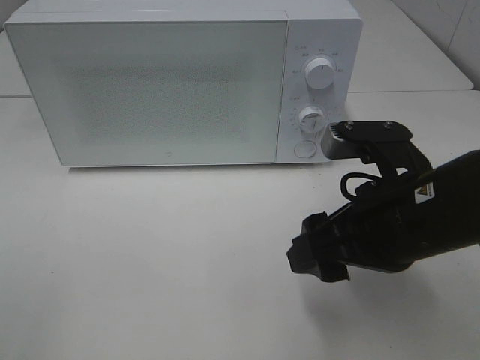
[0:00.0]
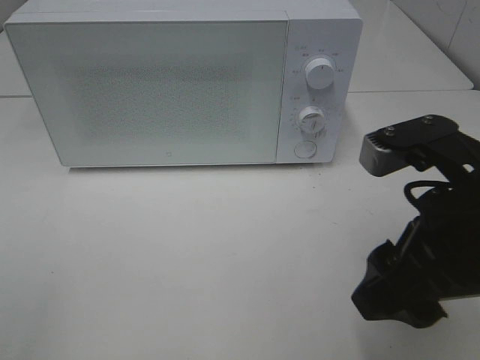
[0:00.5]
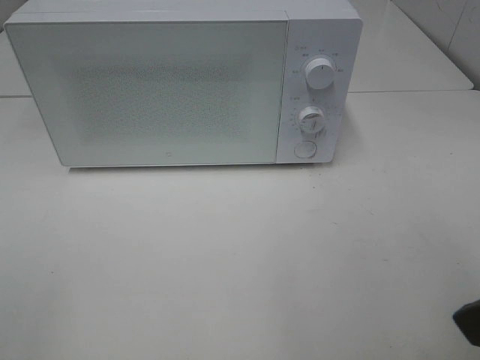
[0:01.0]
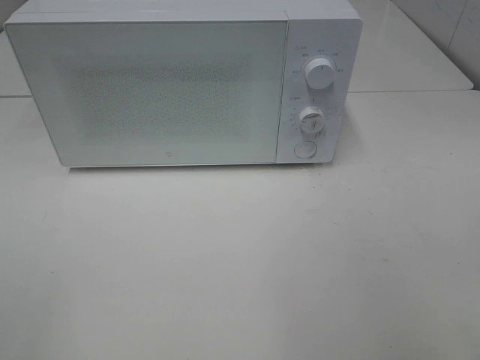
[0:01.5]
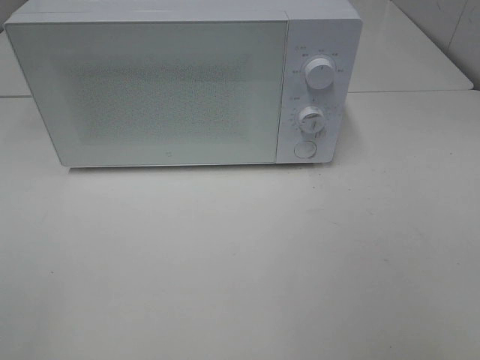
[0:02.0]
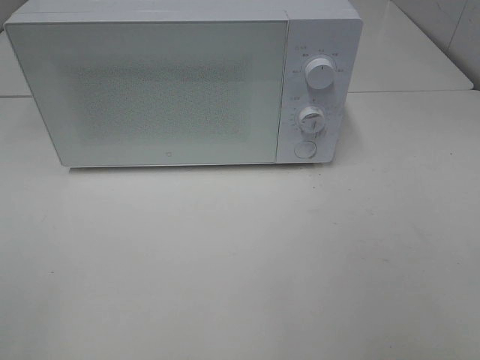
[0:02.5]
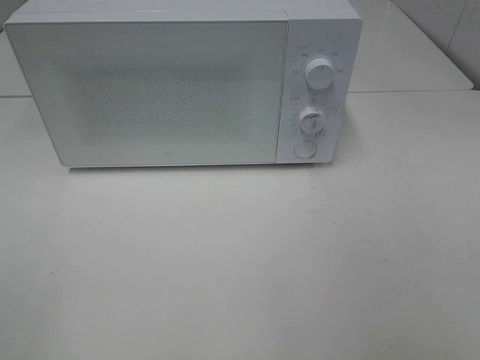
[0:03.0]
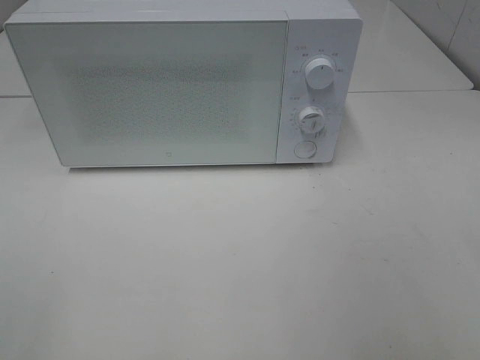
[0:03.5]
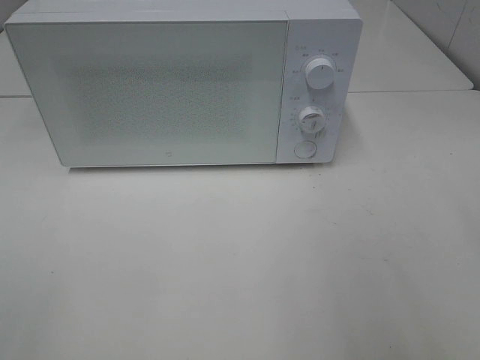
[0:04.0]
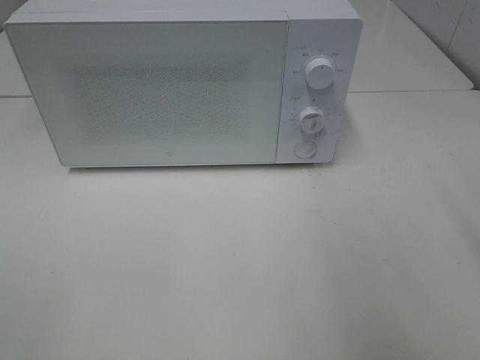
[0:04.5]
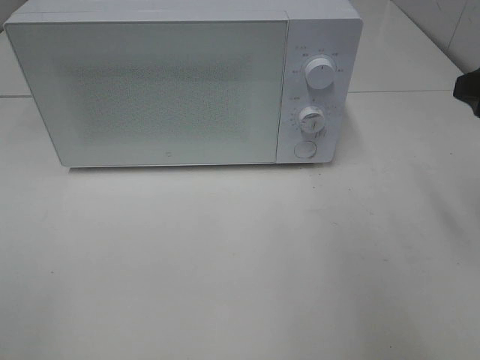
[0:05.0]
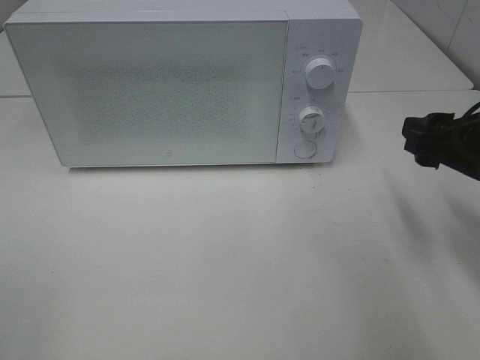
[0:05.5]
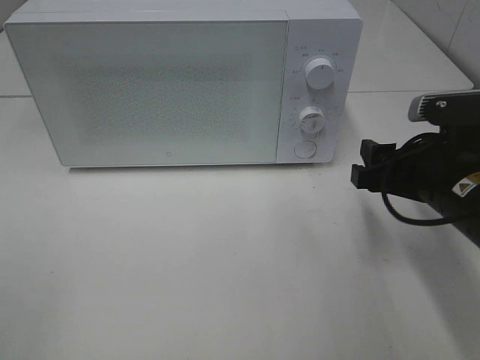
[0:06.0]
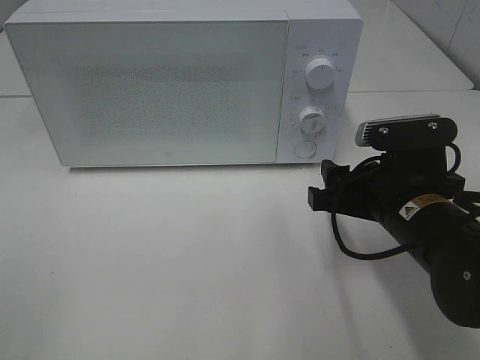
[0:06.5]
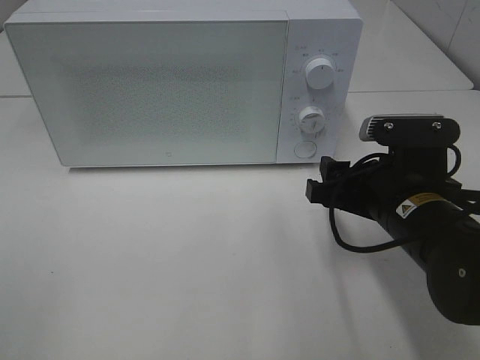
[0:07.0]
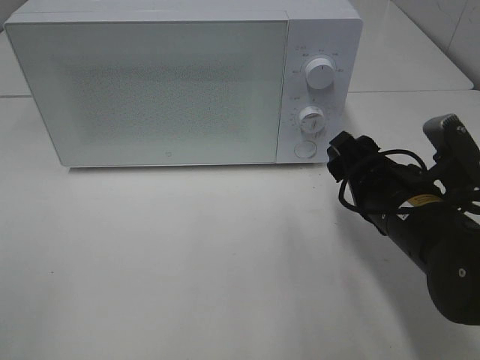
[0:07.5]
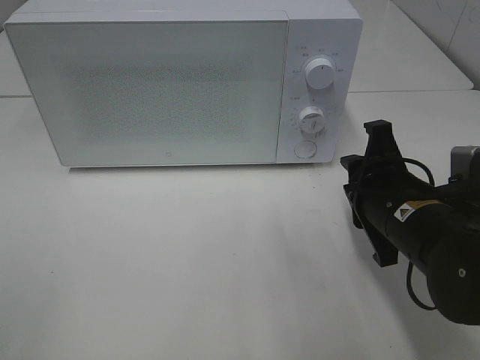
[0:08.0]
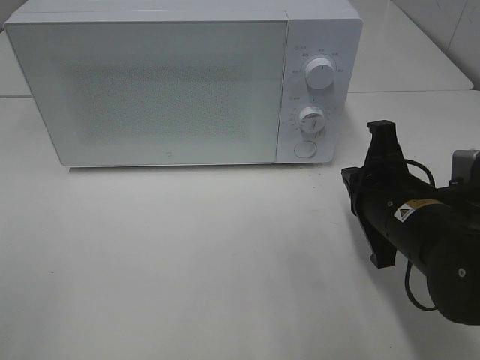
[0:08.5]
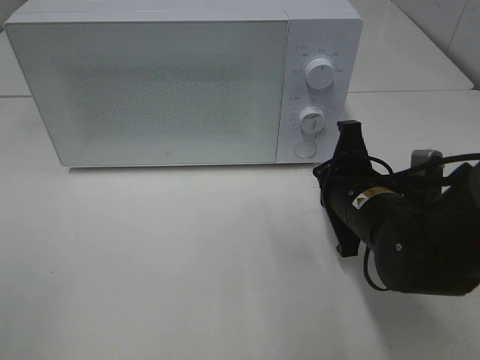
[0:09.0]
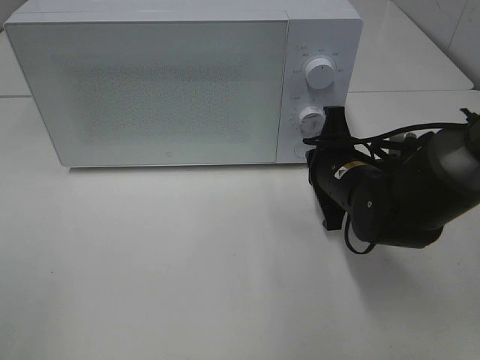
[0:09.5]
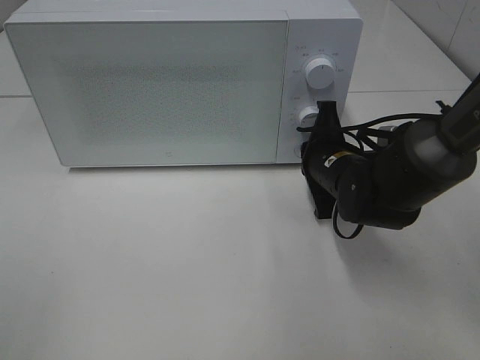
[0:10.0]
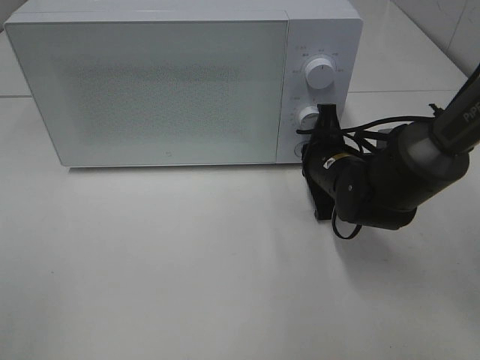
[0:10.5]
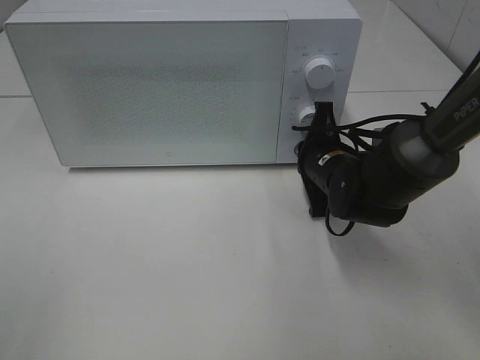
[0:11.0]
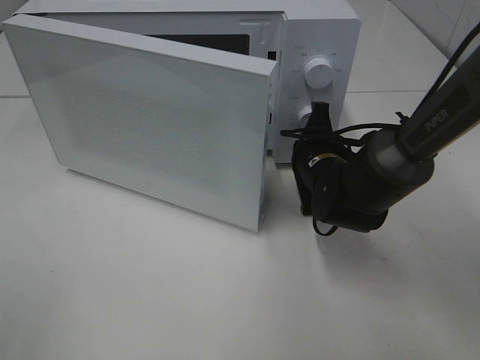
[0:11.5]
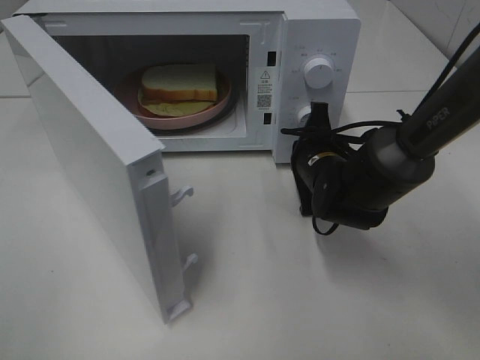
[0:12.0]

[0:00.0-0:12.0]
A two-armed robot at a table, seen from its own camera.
Task of the whole recording: Heat Sandwich.
0:00.0 to 0:02.0: The right gripper is displaced backward, to the right and upward by some 25 cm.
0:04.0 to 0:06.0: The right gripper moves downward, forward and to the left, roughly 20 cm.
0:06.0 to 0:08.0: The right gripper moves about 5 cm, and closes its fingers.
0:08.0 to 0:10.0: The right gripper goes roughly 10 cm forward, and closes up.

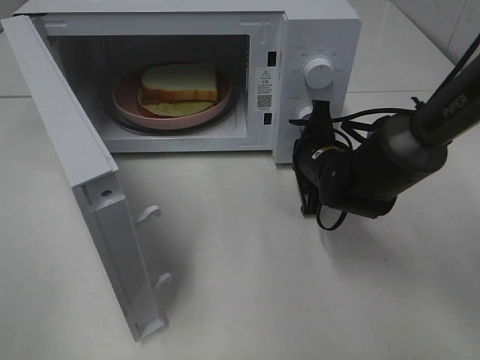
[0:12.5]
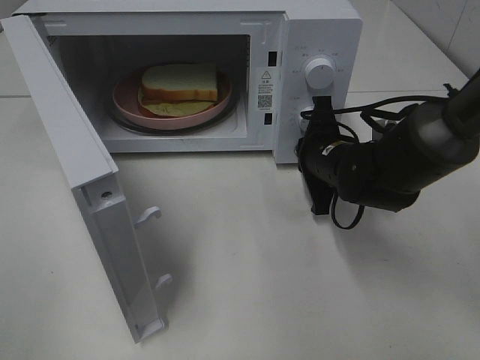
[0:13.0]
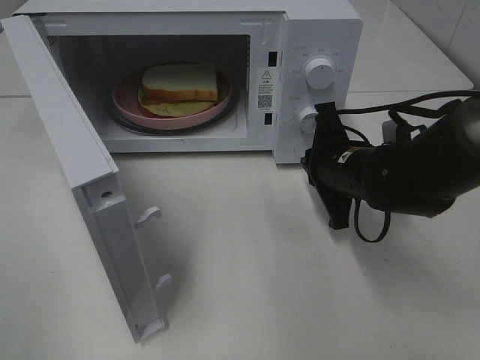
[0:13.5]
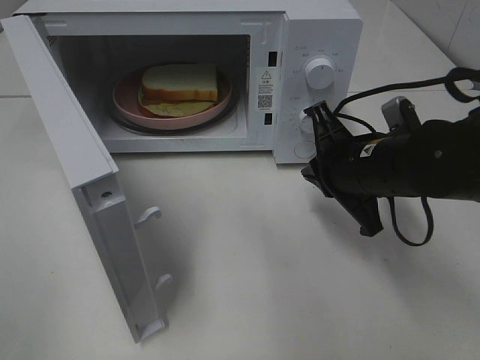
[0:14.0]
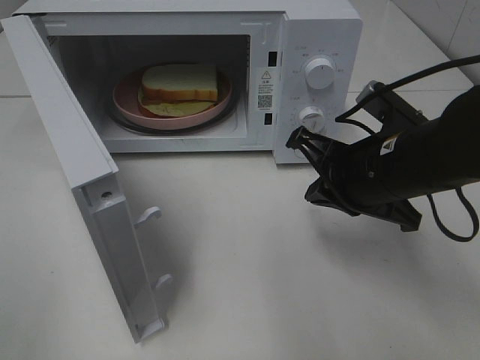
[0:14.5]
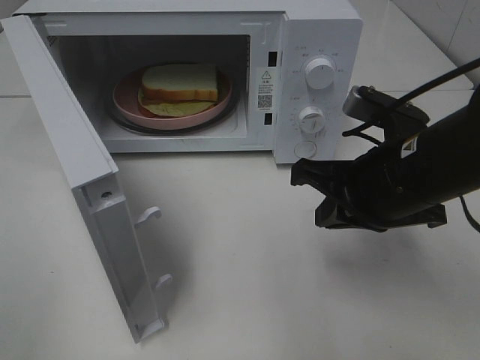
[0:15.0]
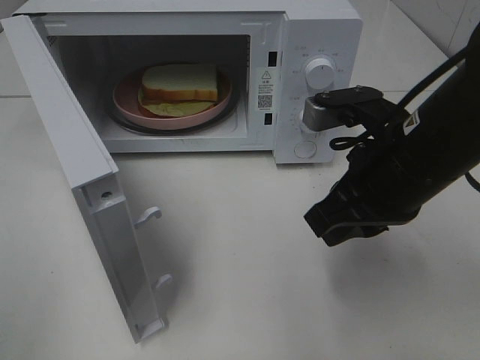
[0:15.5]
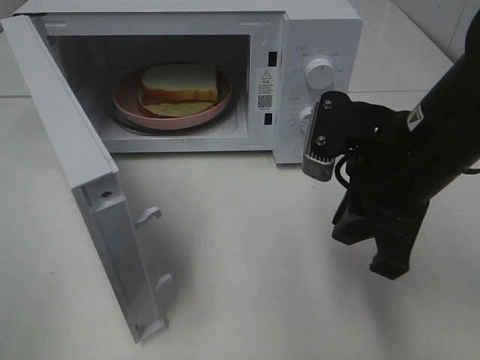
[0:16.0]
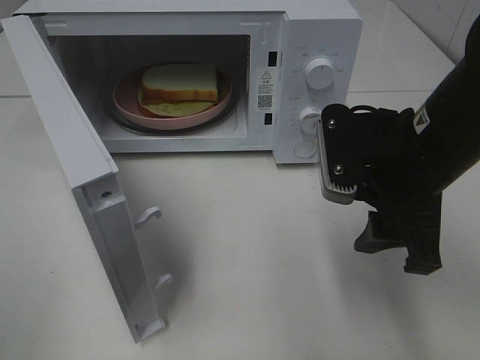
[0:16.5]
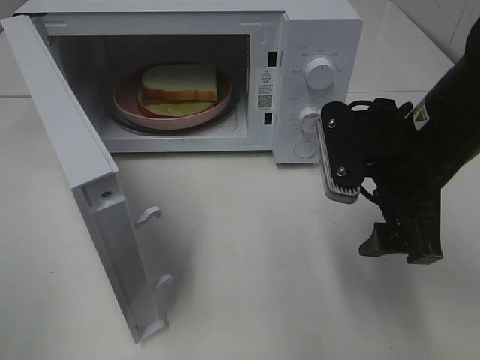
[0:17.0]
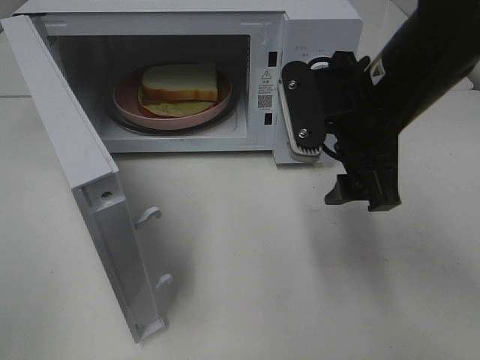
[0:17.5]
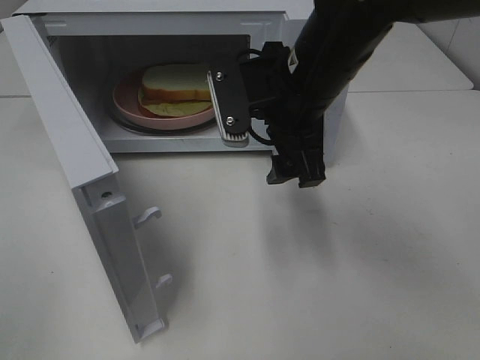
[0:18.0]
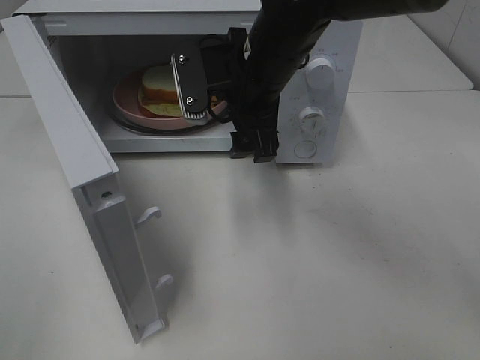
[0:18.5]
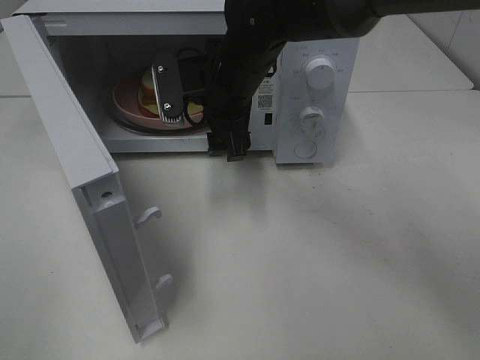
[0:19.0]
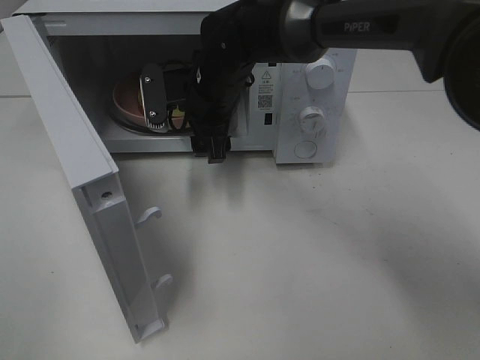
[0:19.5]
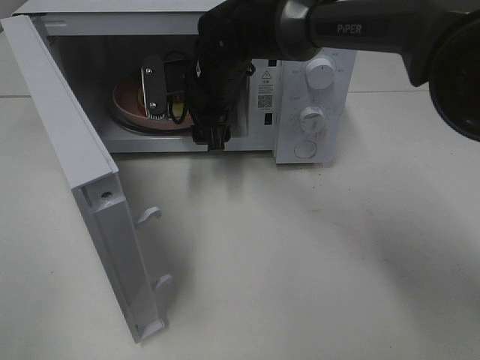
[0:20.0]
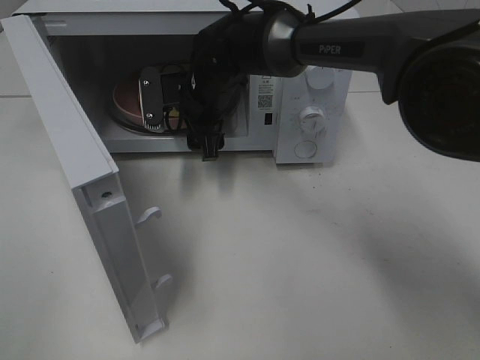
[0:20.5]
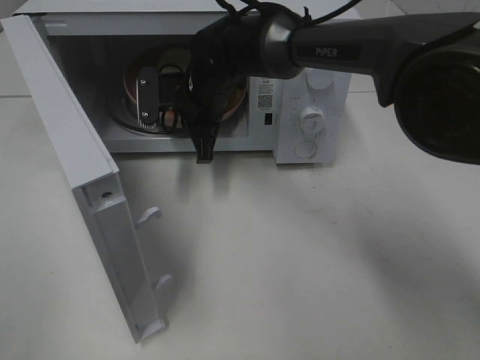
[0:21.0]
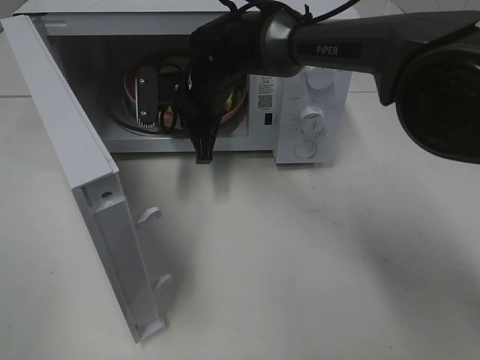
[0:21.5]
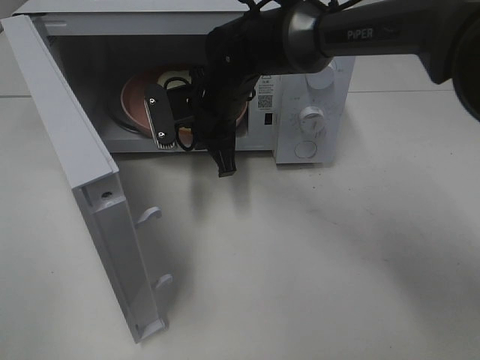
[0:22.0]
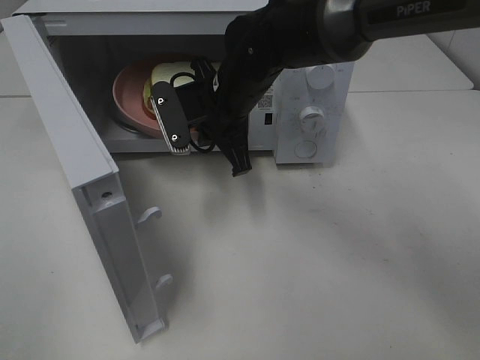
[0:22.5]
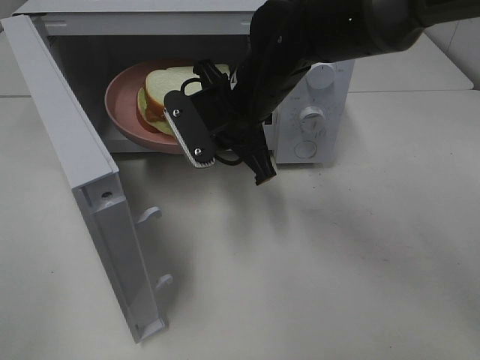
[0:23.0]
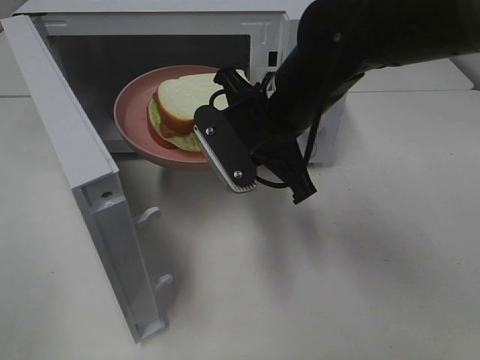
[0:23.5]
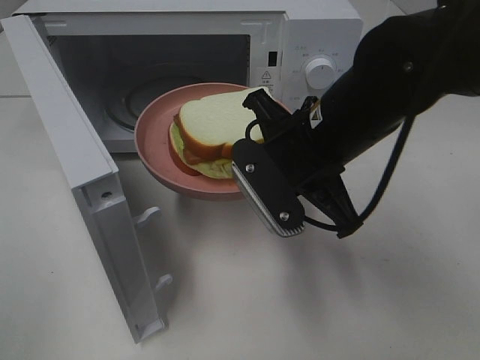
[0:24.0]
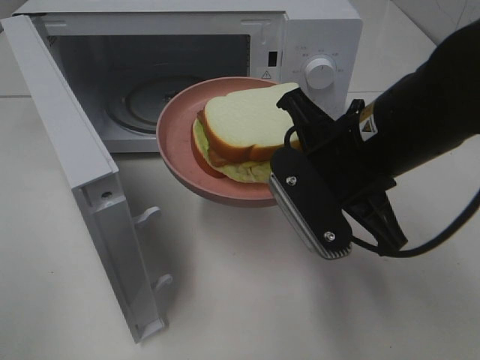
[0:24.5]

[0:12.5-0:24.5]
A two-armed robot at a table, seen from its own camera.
Task of the whole recording: Heat Sandwich.
Step, 0:13.5 to 0:21.5: Right hand: grab the plate with the sandwich.
0:12.5 to 0:14.5: The right gripper travels backward and upward by about 15 cm.
0:14.5 to 0:16.5: The right gripper opens.
0:16.5 to 0:18.5: The right gripper moves to the left and forward, approximately 15 cm.
0:18.5 to 0:20.5: The right gripper travels forward, downward and to the left by some 15 cm.
0:20.5 to 0:22.5: The right gripper travels backward by approximately 5 cm, and closes up.
0:22.5 to 0:24.5: The right gripper is displaced backward and to the right by approximately 20 cm.

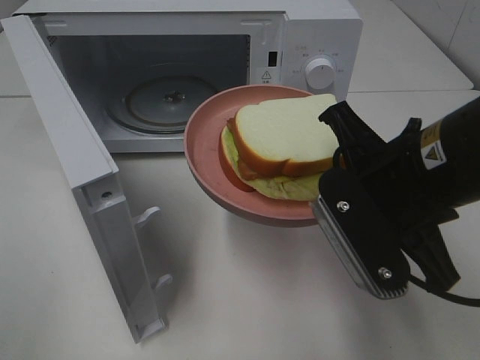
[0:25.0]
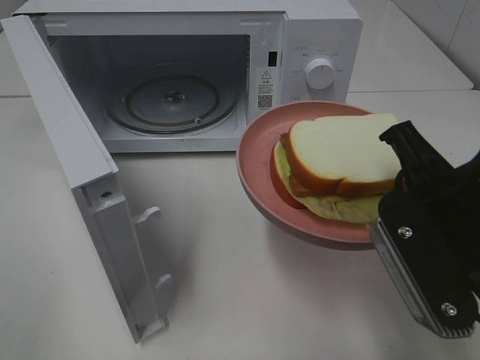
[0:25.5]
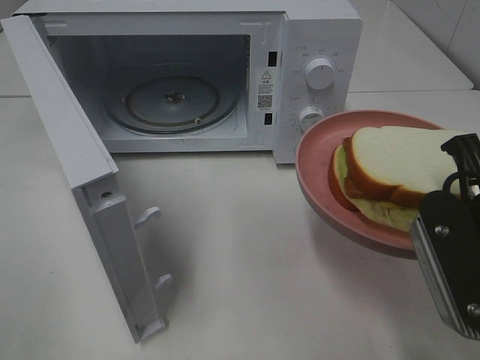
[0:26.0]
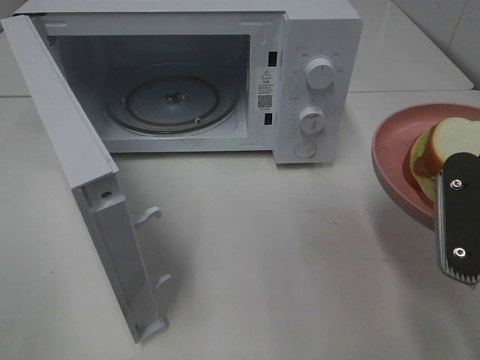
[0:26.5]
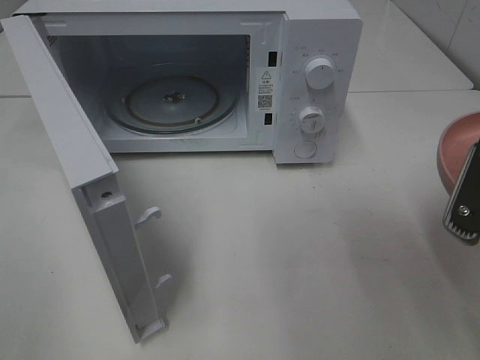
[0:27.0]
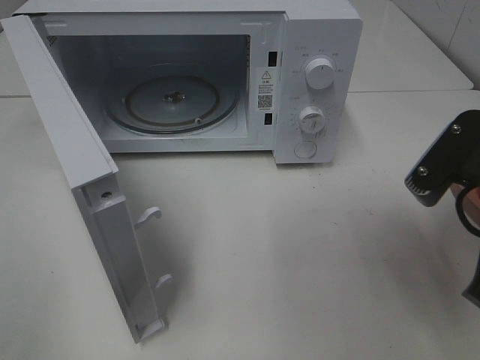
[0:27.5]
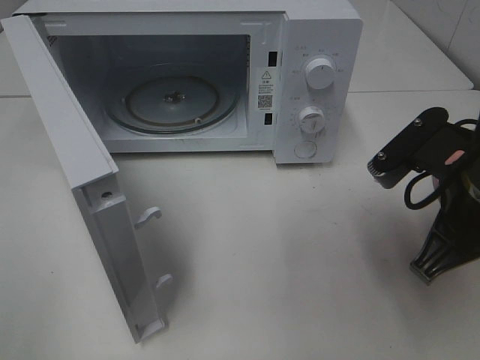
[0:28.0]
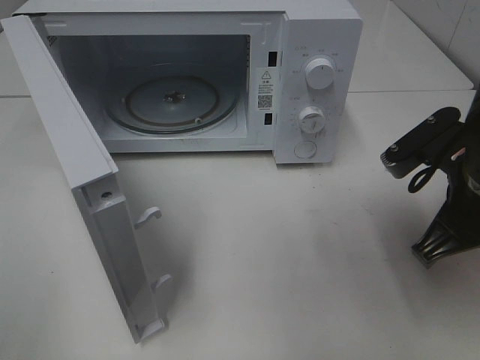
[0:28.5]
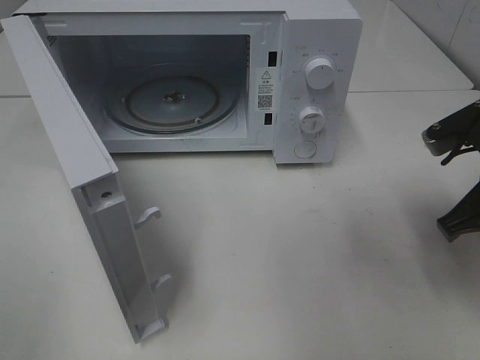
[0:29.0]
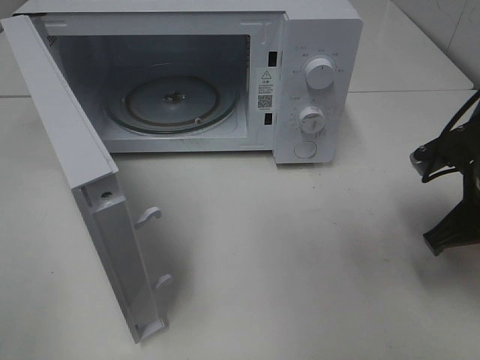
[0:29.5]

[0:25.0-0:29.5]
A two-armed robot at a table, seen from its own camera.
Task of the whole recording: Heat Sandwich.
0:25.0 to 0:27.0: The right gripper goes about 10 cm to the right.
0:27.0 to 0:29.5: The right gripper shifts some 15 cm forward and downward.
